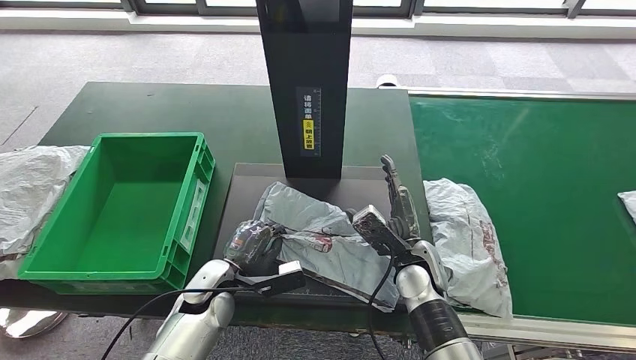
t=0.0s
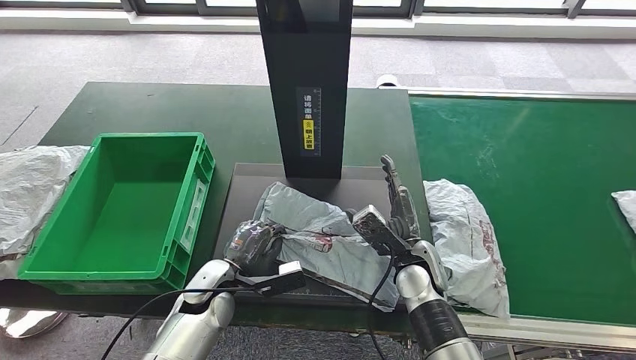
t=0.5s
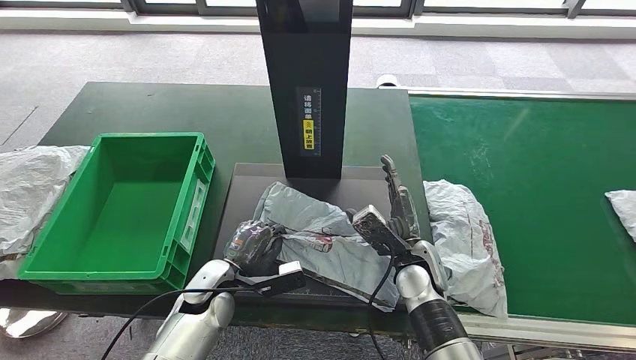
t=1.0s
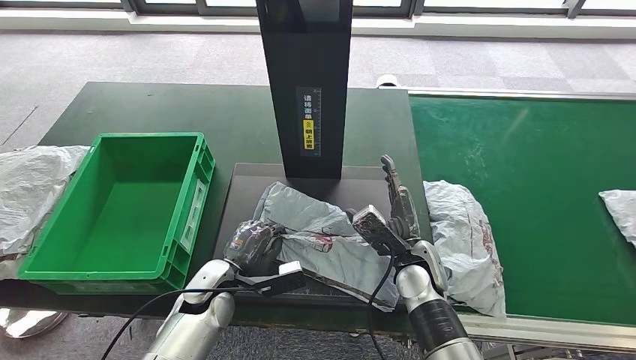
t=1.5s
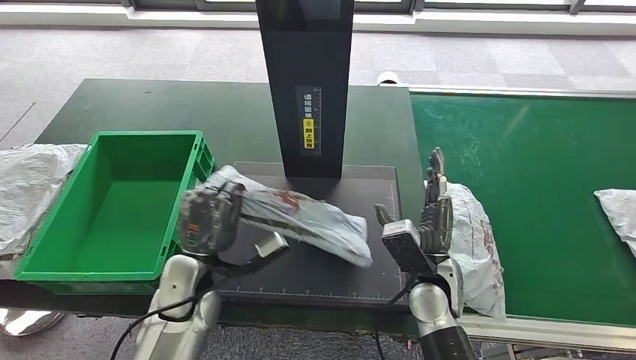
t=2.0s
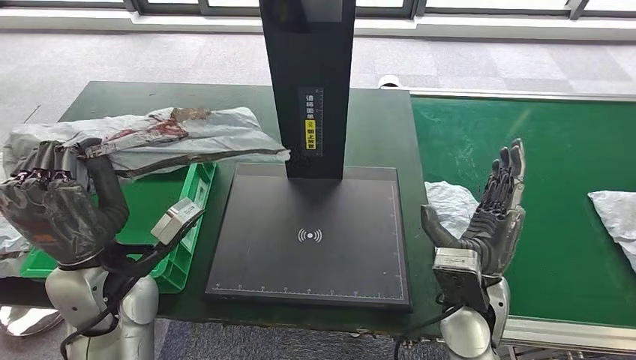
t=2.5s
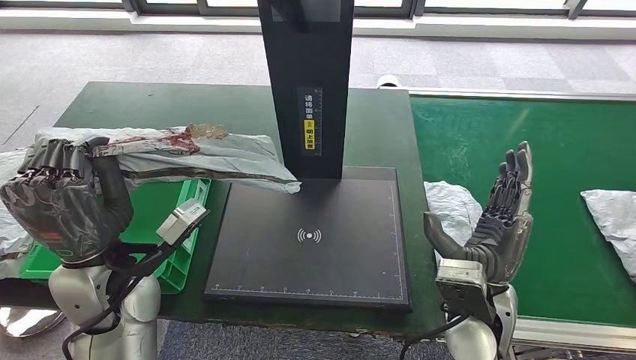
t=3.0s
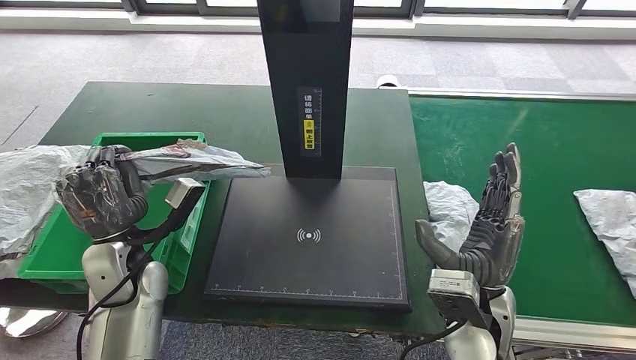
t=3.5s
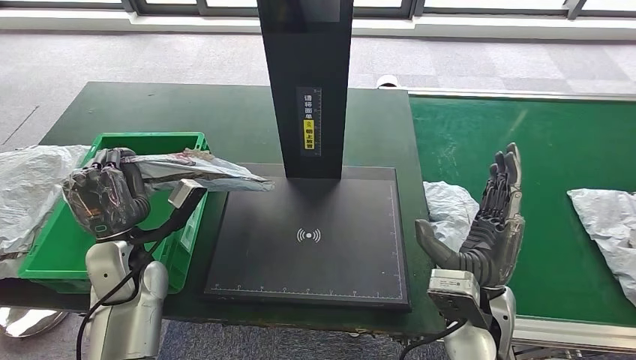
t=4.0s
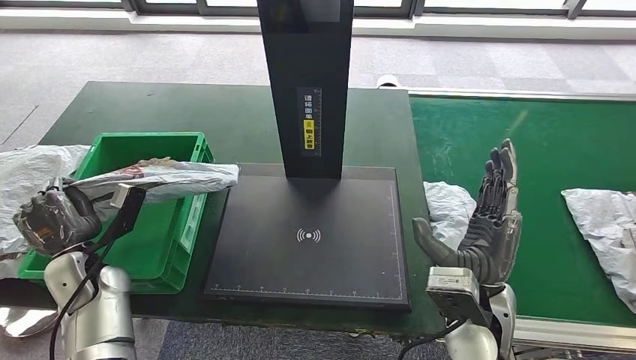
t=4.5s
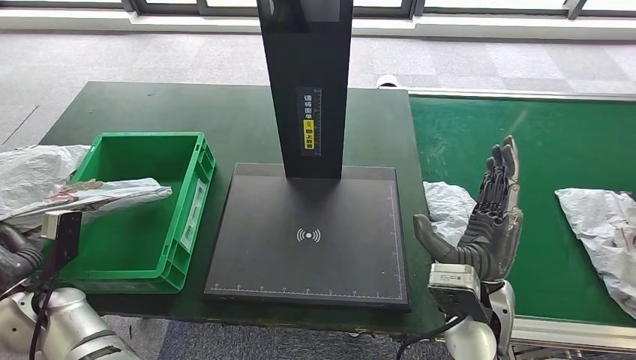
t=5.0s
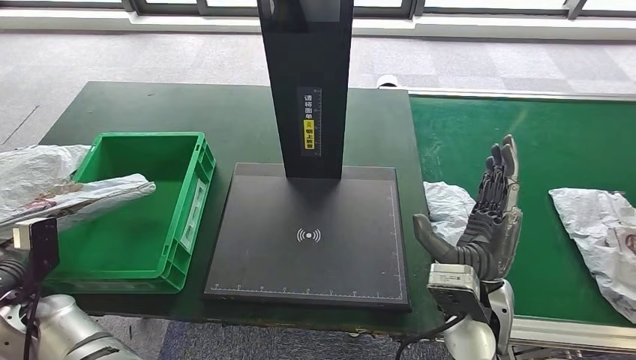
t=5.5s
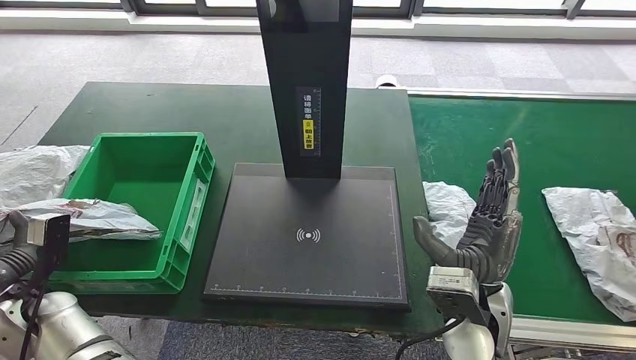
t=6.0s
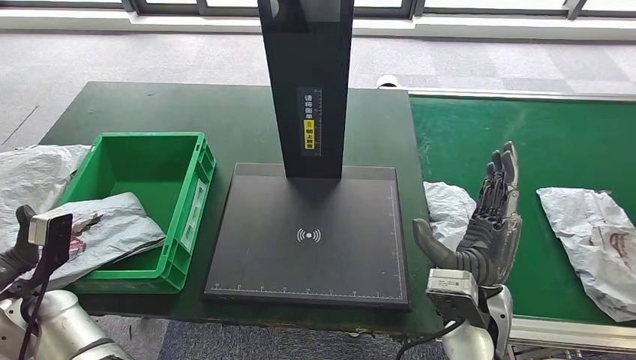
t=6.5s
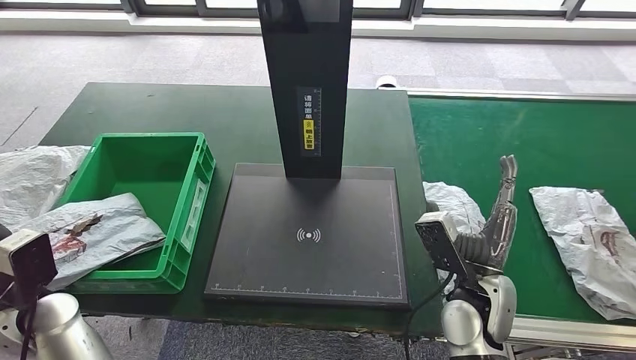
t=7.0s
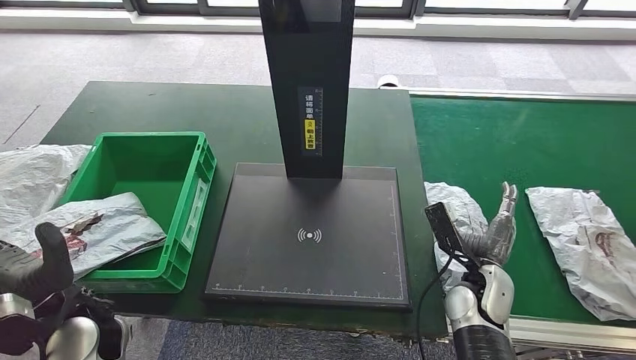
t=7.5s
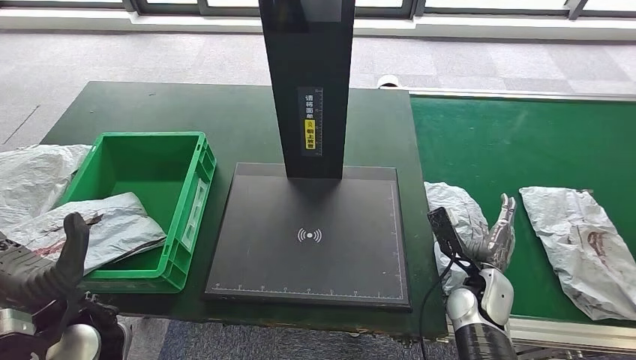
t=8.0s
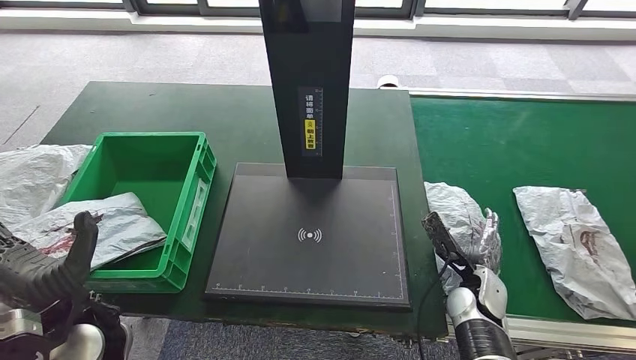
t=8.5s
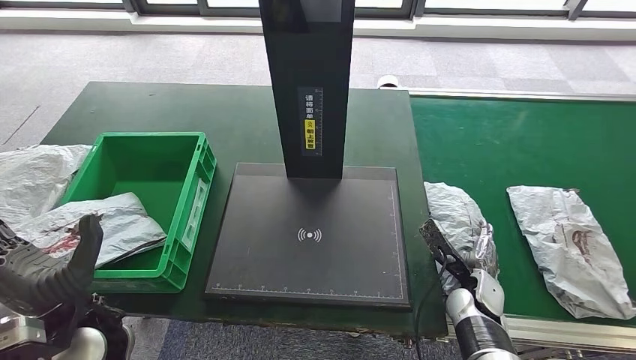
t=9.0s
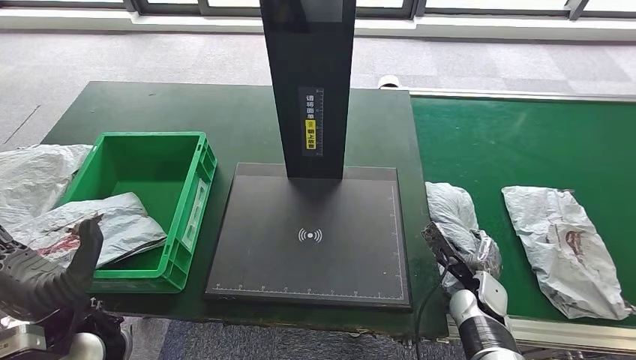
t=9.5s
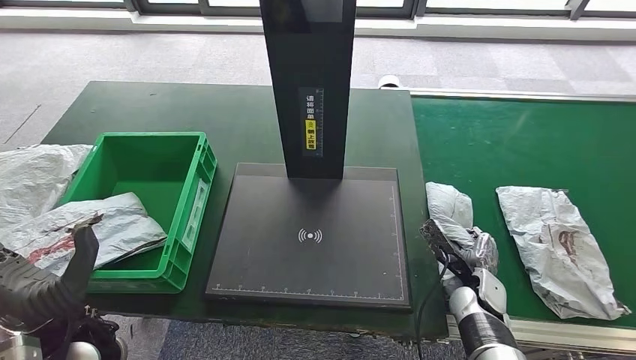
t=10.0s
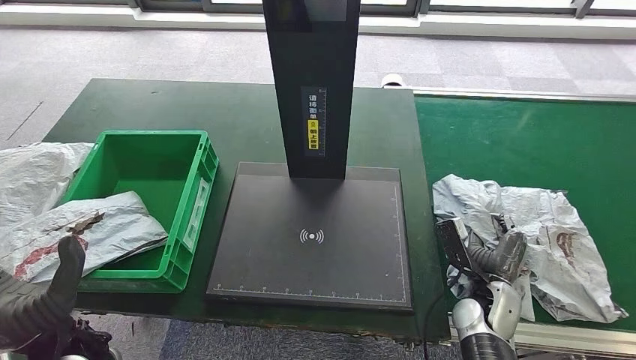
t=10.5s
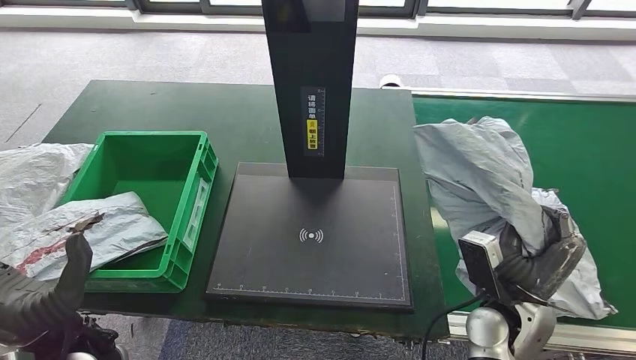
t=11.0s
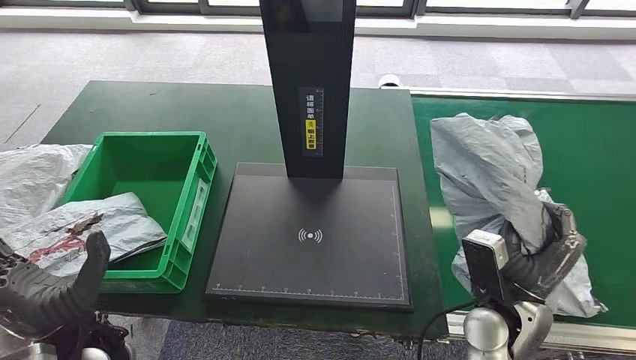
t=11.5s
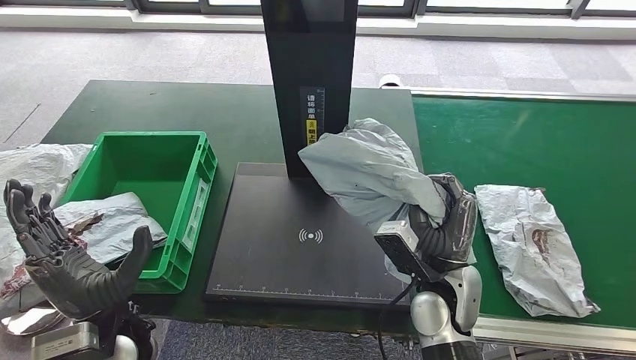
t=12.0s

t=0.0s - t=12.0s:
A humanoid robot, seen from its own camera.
Step, t=0.0s - t=4.0s: Pick up the parcel from the inbound machine.
Step, t=5.5s - t=8.5s: Put the parcel inside the courier box.
t=4.0s - t=6.0s: The left hand travels to the left and backward by some 15 cm.
t=6.0s - t=8.0s: The right hand heads downward and to the right, covering some 15 cm. Meanwhile the left hand is displaced to the right and upward by approximately 15 cm.

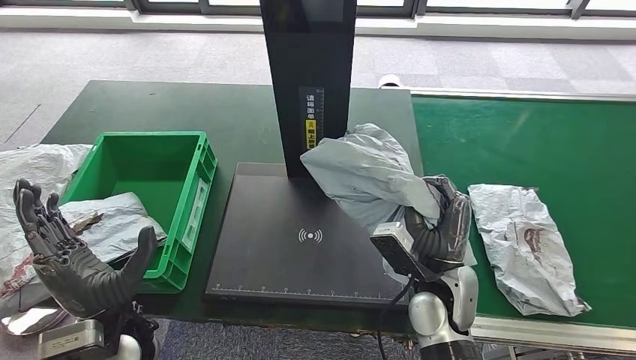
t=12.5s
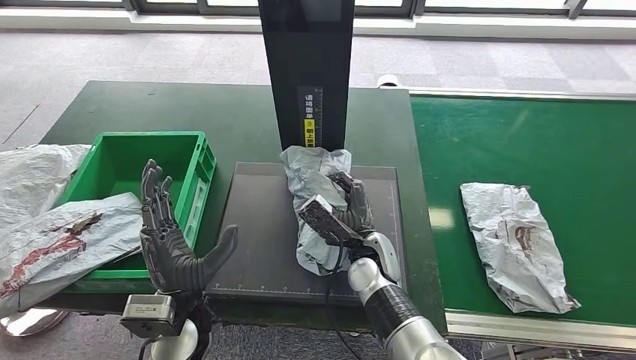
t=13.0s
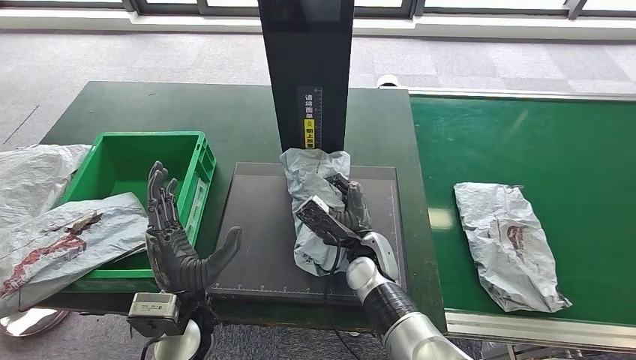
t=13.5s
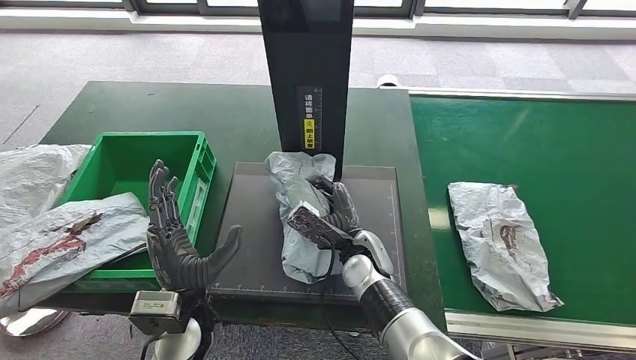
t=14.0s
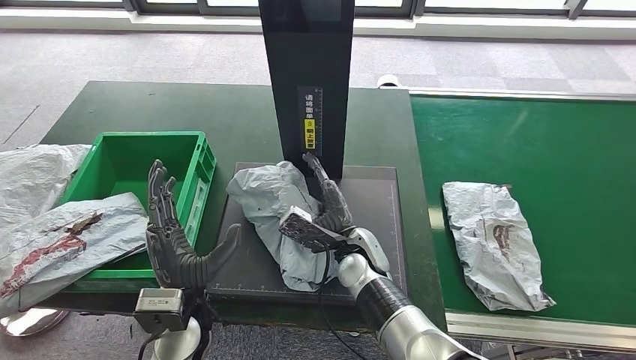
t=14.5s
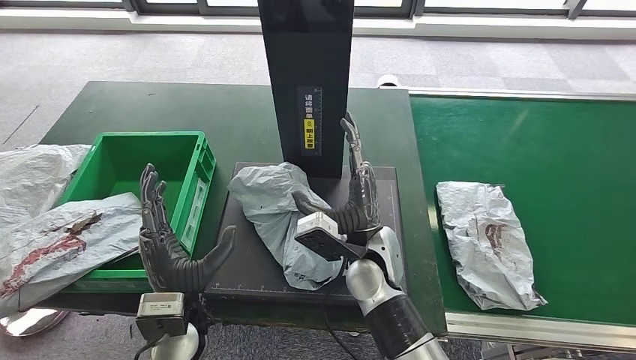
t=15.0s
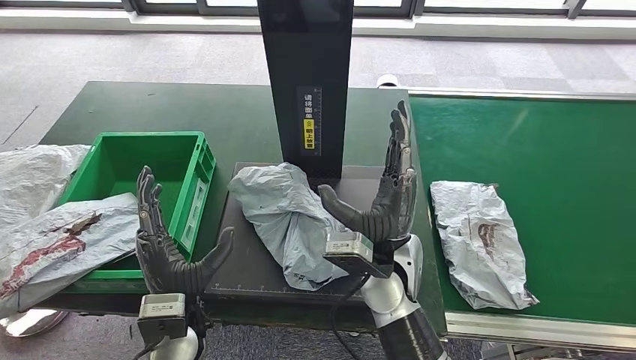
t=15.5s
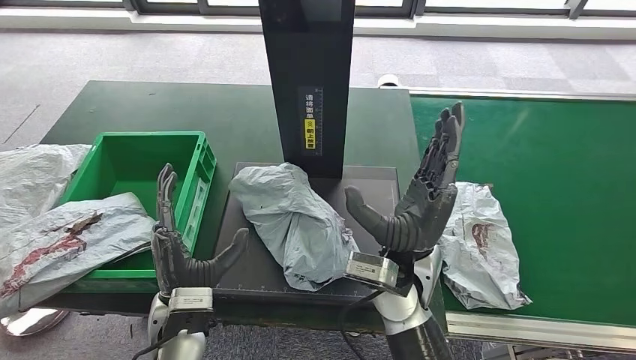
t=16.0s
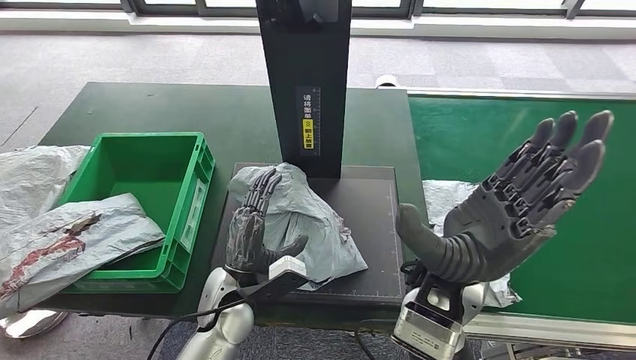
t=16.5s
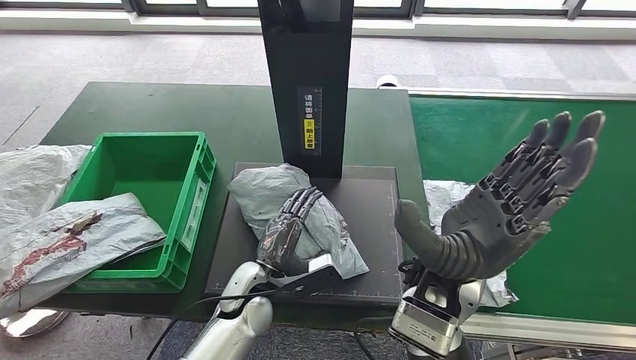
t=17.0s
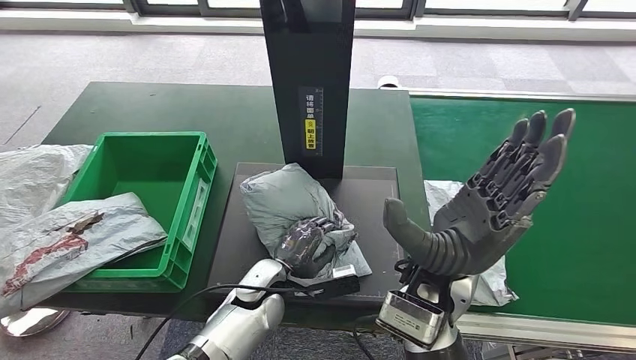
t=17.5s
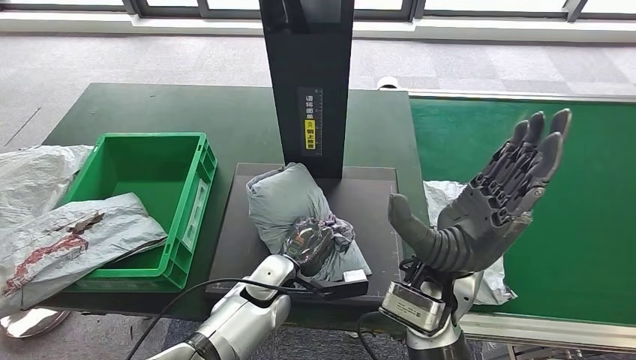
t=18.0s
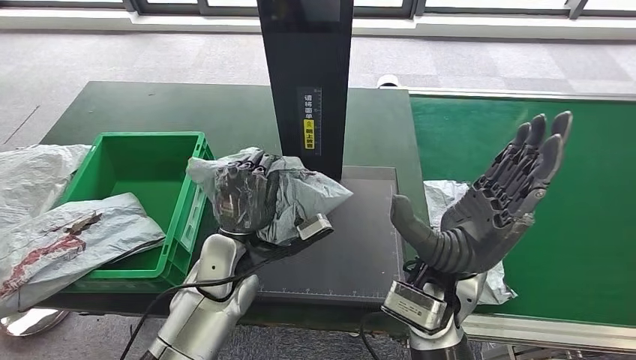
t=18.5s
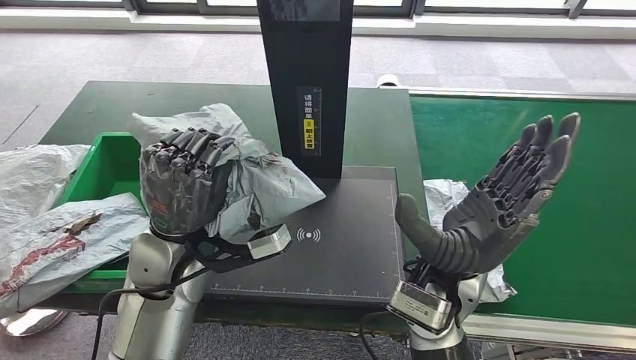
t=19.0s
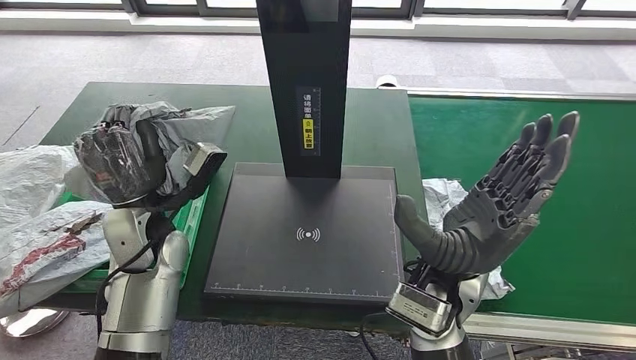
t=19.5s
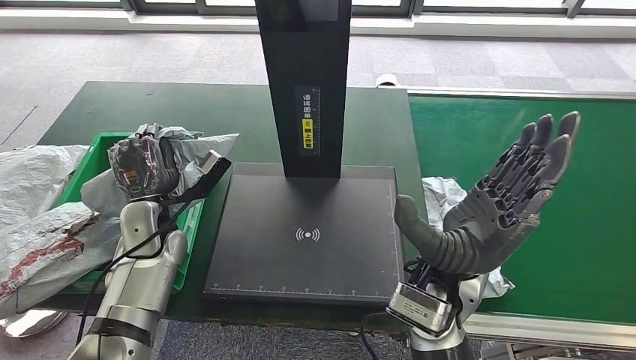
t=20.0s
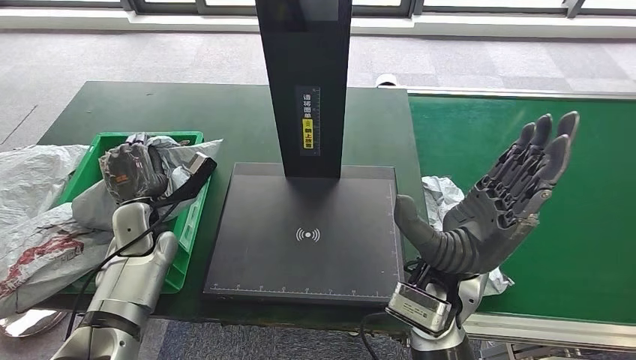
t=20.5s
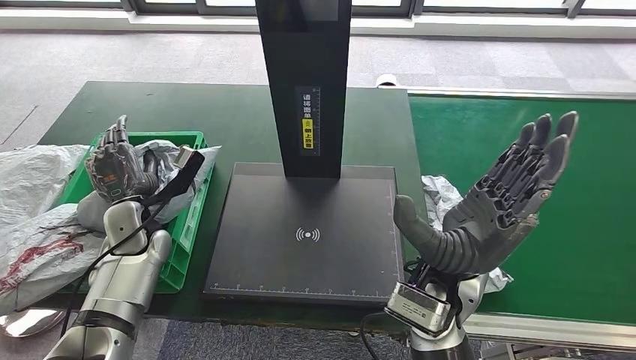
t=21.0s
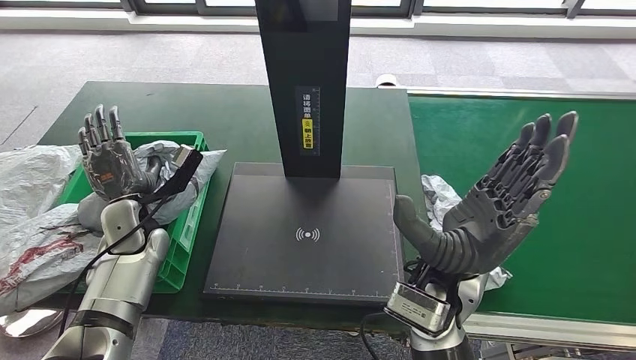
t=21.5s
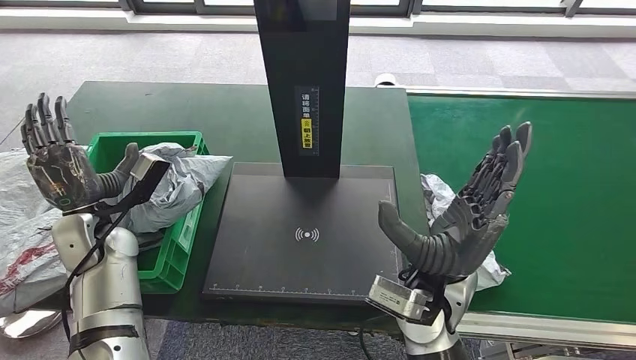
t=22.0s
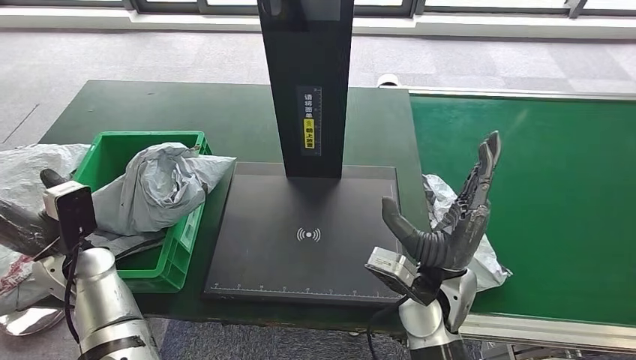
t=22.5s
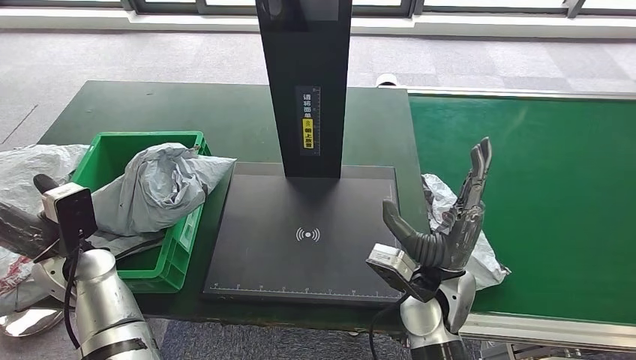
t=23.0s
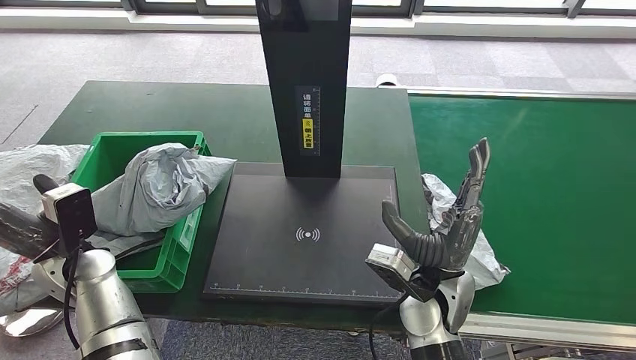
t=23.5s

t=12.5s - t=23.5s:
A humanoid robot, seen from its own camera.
Step, t=13.0s - t=15.0s: Place the parcel onto the inbound machine.
Step, t=15.5s - t=19.0s: Pick up the parcel from the inbound machine.
Step, t=20.0s - t=23.0s: Place the parcel into the delivery box.
t=14.5s - t=16.0s: The right hand shifts about 10 cm upward.
t=20.0s - t=21.5s: The hands stay close to where they were, moving slightly.
t=21.5s - t=23.5s: The right hand goes approximately 10 cm downward, while the left hand travels backward by approximately 5 cm.
